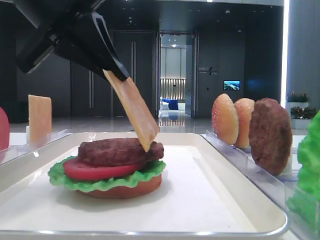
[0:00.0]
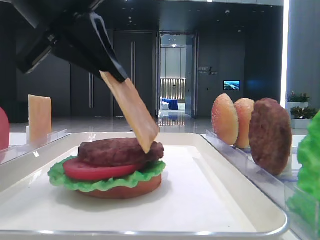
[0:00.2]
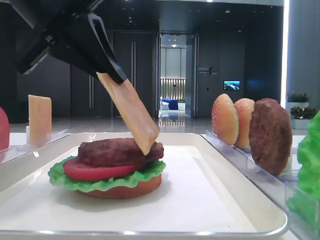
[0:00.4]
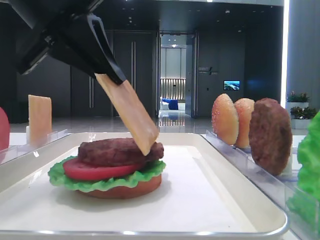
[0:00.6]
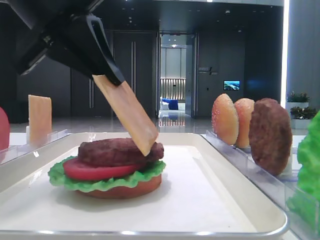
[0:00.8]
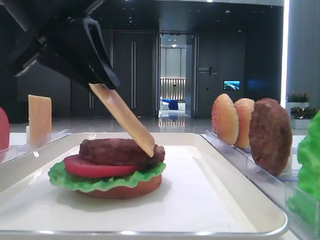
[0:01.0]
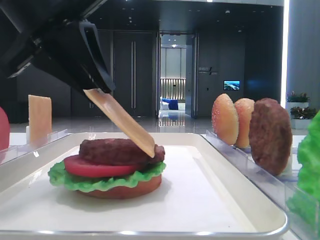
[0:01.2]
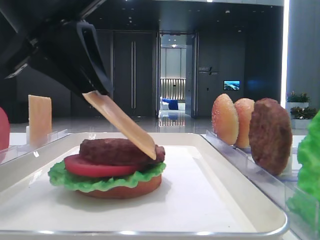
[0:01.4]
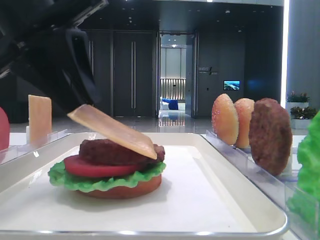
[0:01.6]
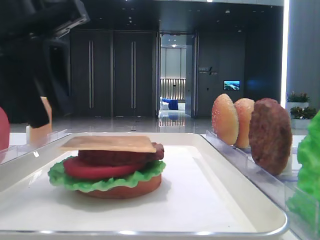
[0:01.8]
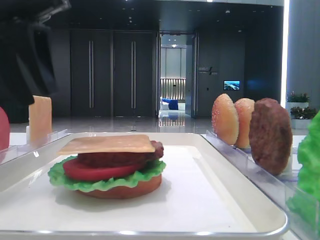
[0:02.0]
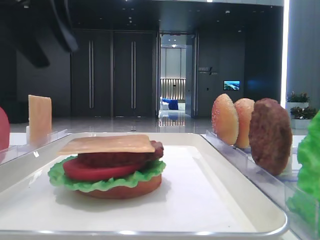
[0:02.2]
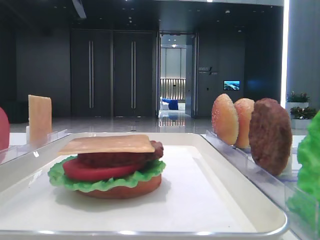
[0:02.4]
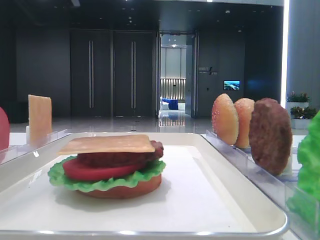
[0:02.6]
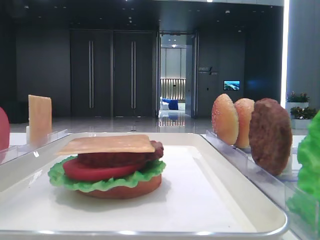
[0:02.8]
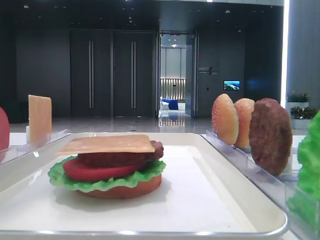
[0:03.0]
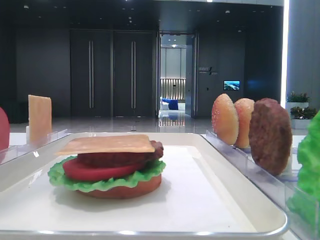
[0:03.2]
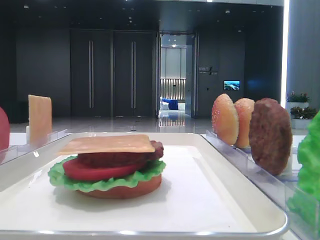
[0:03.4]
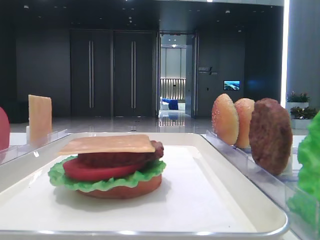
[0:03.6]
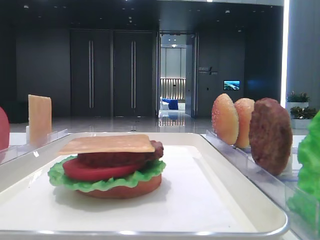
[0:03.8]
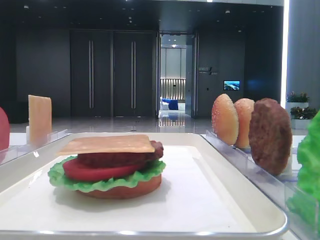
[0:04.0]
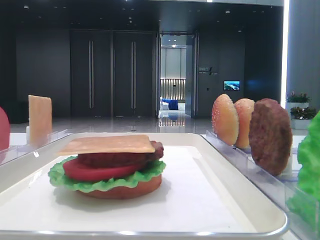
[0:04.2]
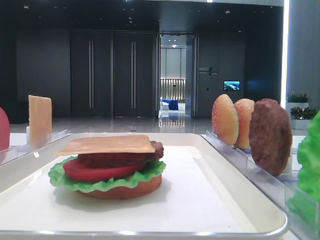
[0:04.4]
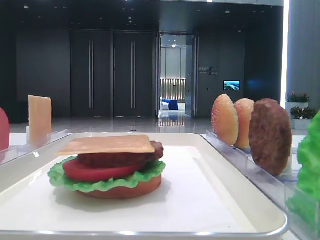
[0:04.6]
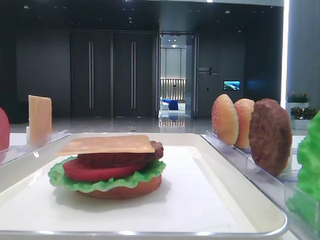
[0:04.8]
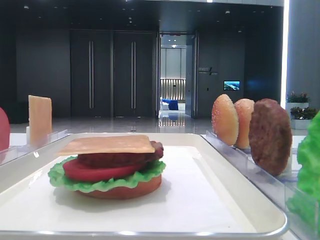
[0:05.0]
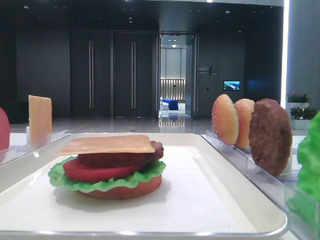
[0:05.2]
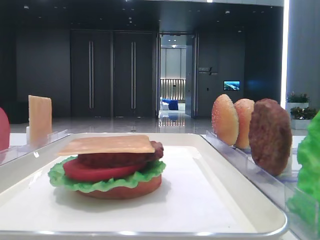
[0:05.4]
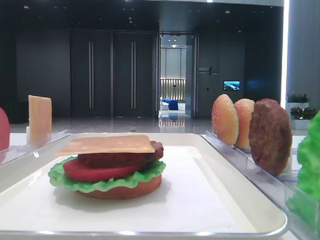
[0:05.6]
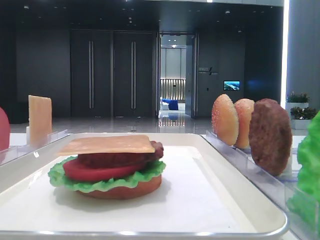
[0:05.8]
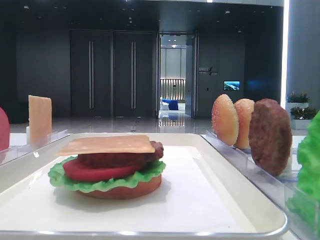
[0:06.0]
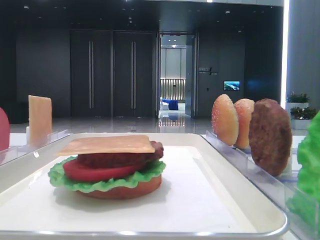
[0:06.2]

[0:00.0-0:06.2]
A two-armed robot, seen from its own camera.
0:00.0 to 0:01.6: The left gripper opens.
0:01.6 to 0:03.2: The left gripper travels upward and to the left by some 15 cm, and opens its fingers.
0:03.2 to 0:04.6: The left gripper heads backward and to the left, covering approximately 25 cm.

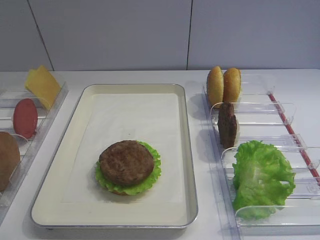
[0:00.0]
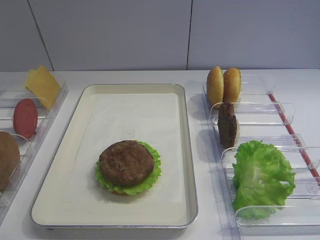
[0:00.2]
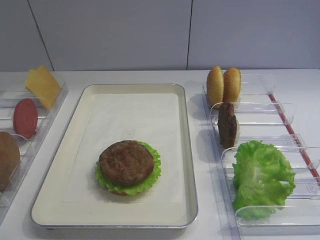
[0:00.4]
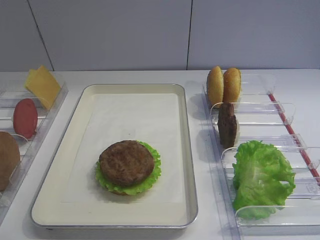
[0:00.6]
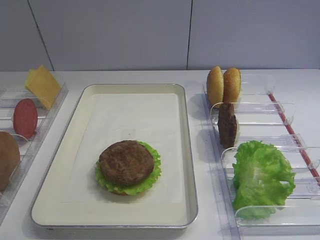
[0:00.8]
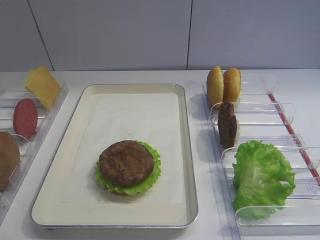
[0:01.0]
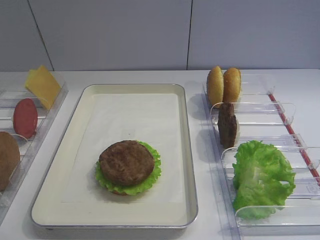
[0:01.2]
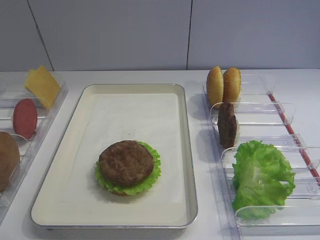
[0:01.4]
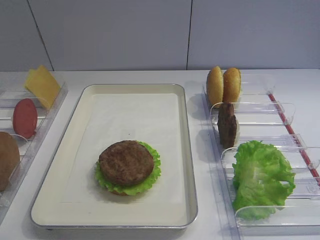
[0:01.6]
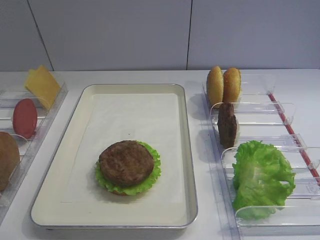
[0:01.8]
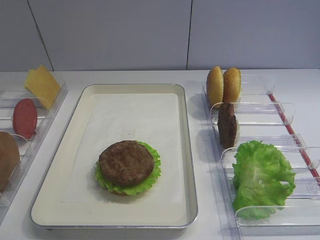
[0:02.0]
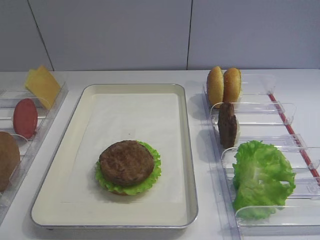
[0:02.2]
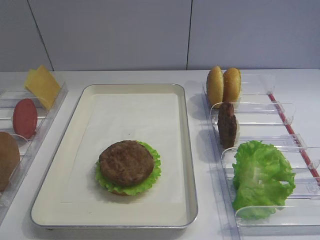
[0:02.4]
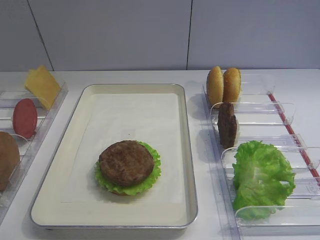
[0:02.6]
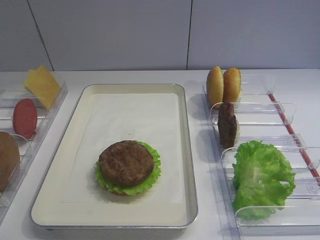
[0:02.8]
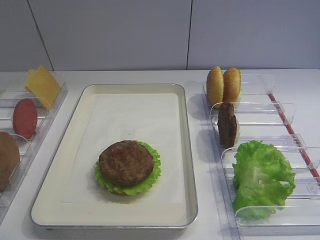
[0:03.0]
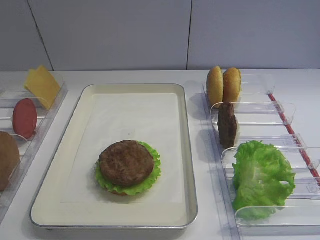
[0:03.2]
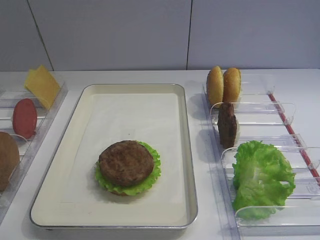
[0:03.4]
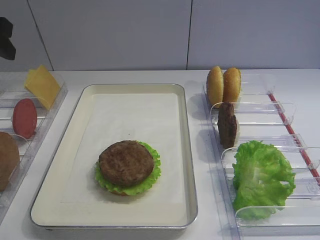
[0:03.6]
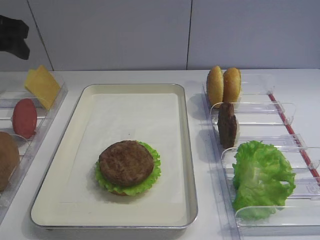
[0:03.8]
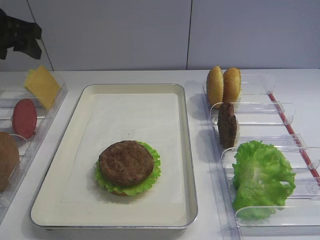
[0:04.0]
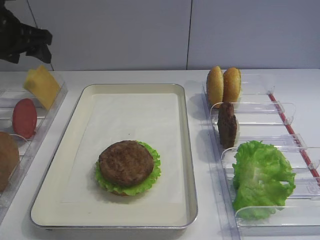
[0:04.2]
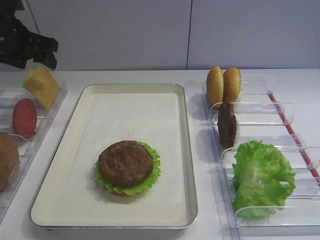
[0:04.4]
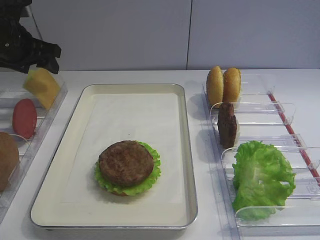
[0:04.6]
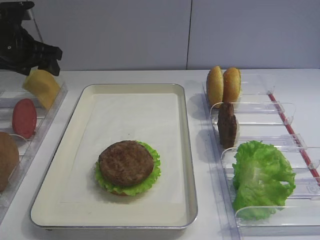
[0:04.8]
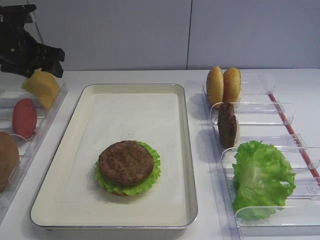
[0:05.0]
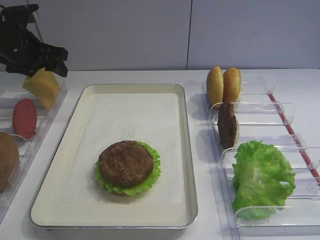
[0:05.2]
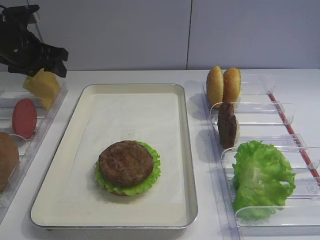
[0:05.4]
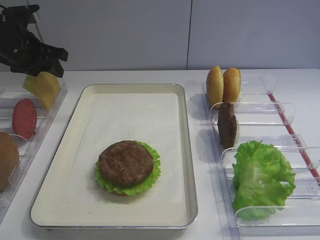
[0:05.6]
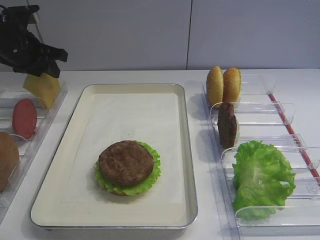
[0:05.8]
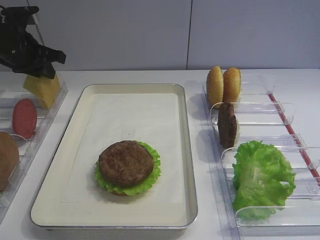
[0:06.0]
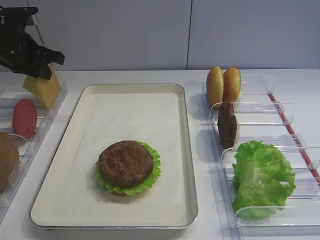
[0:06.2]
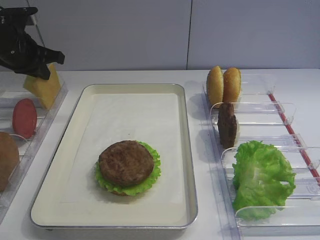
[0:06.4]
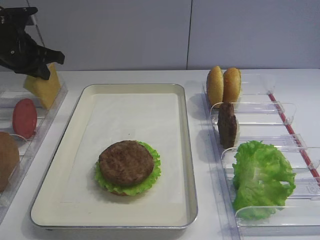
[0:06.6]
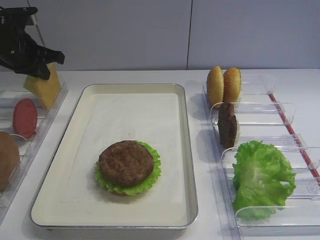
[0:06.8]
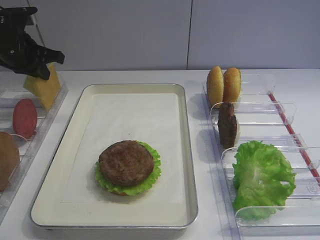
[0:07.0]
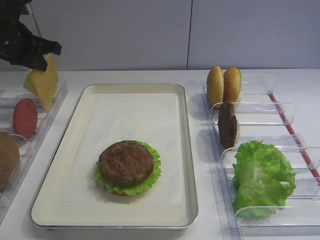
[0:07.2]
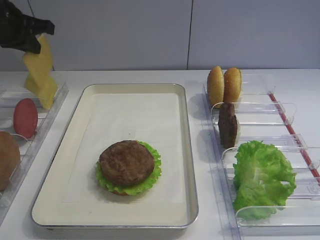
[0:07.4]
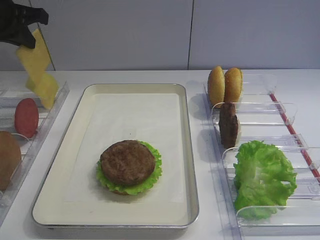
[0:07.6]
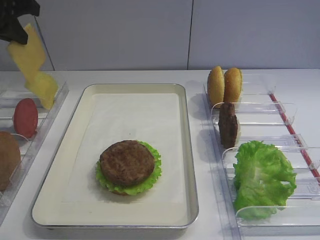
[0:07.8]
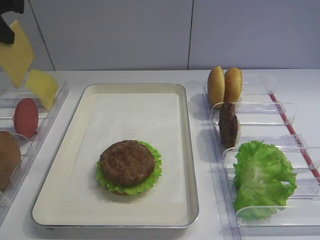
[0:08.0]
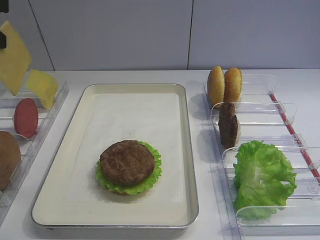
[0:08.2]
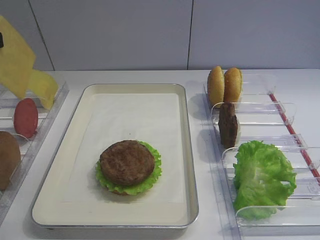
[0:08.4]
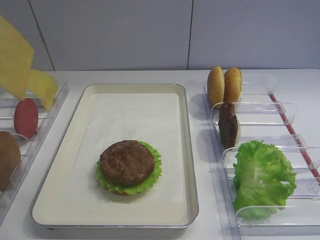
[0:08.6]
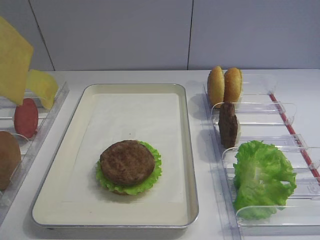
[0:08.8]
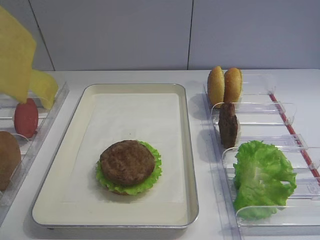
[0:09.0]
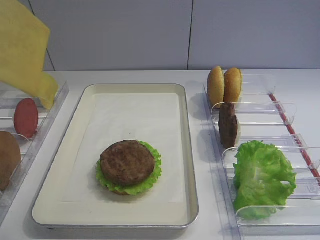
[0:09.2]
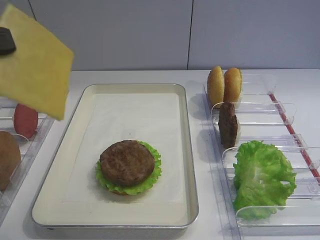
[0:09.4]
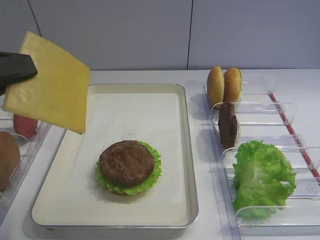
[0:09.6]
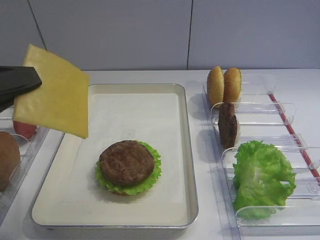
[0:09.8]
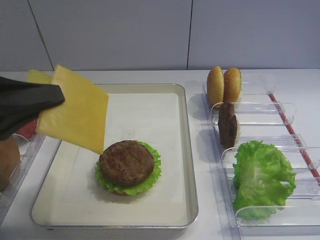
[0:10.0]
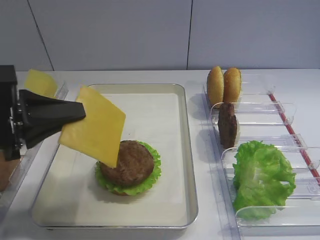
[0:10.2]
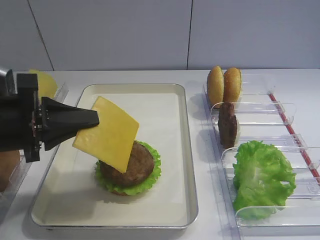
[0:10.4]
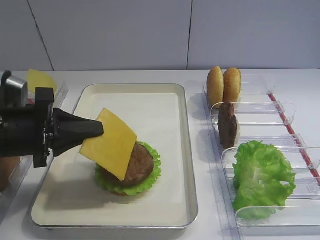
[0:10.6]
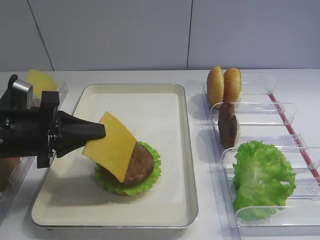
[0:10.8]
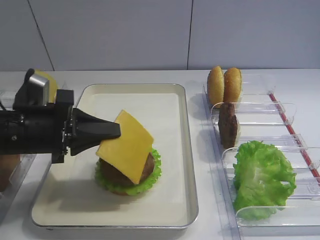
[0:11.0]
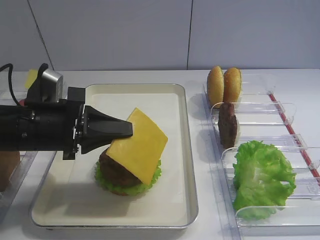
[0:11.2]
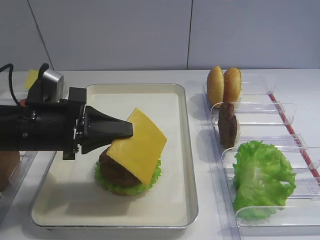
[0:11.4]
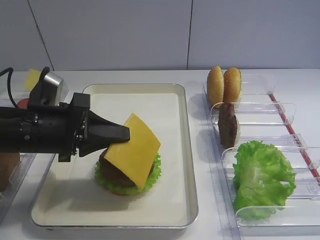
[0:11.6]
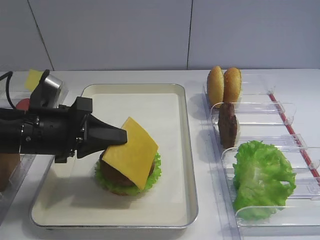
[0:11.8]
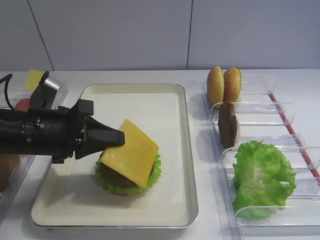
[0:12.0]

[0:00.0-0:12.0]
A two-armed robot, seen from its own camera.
Step, 0:00.0 to 0:06.2: Pick up the cheese slice with the left gripper.
0:03.0 to 0:04.4: The left gripper goes roughly 25 cm forward.
0:04.4 to 0:06.0: The left gripper closes.
0:06.0 to 0:07.6: The left gripper moves upward, approximately 10 cm.
0:07.6 to 0:09.0: The left gripper heads backward, covering approximately 25 cm.
0:09.0 to 0:10.4: The left gripper goes approximately 20 cm downward and forward.
0:10.4 to 0:12.0: The left gripper ends up approximately 5 cm from where it was.

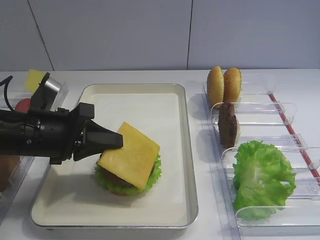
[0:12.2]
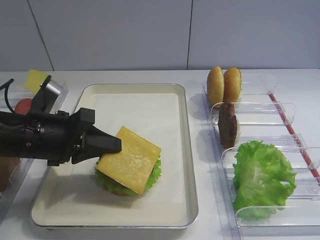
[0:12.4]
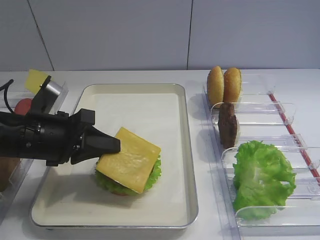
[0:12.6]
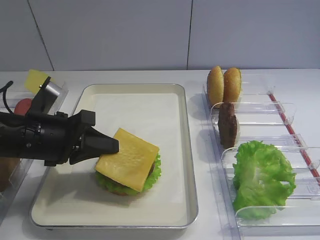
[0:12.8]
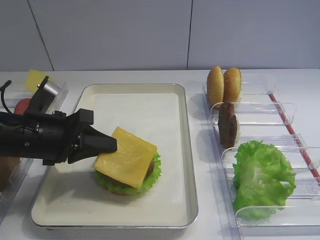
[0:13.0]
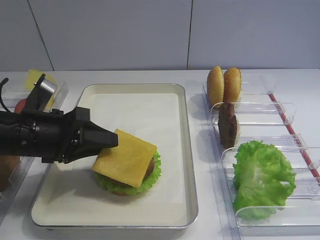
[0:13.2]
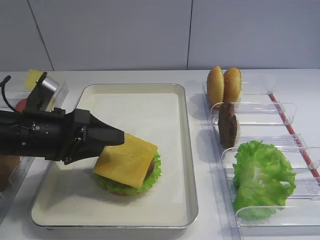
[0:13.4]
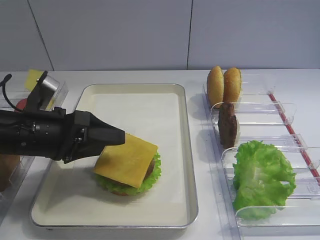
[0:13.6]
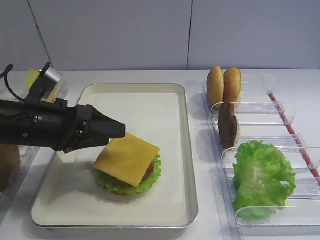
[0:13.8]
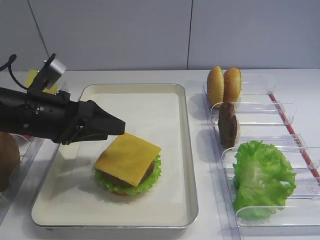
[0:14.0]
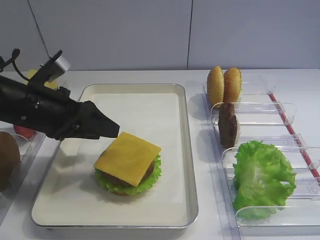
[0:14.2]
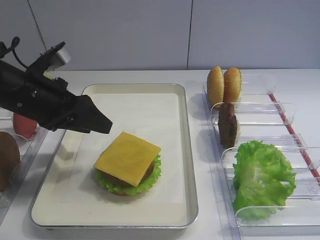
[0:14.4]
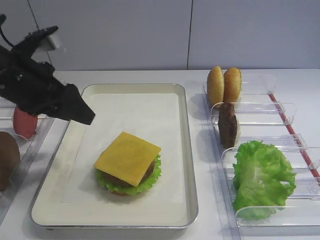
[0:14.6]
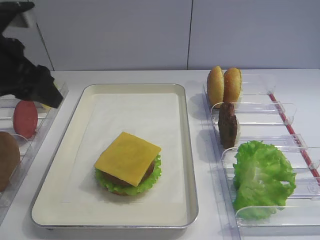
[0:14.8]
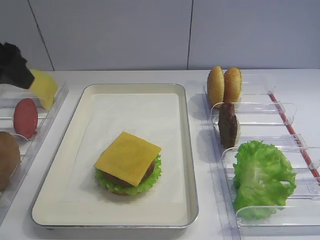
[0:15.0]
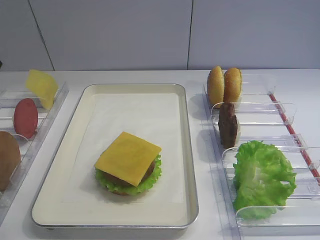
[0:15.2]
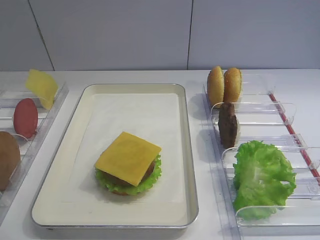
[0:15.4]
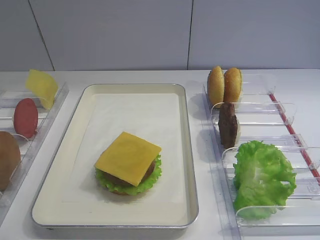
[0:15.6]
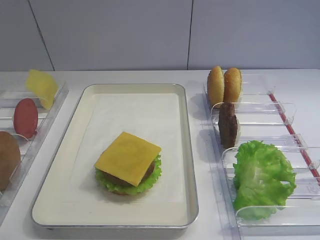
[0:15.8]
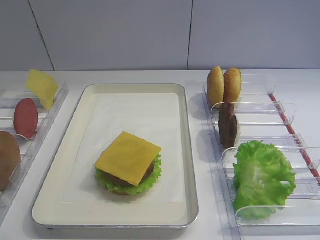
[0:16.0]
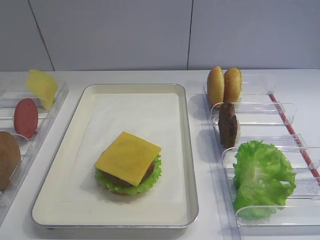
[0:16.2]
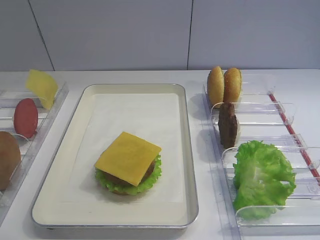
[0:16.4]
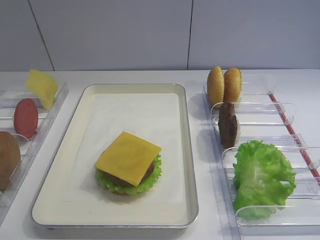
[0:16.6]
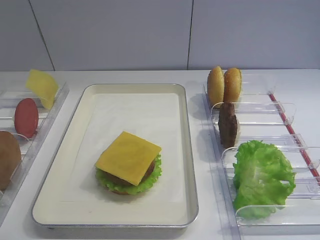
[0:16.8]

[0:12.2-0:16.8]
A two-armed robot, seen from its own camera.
Step, 0:12.2 to 0:14.2: Place the cheese slice on the cutlet with the left gripper.
0:12.2 to 0:13.8: The left gripper opens.
0:13.8 to 0:15.2: The left gripper heads upward and to the left, covering approximately 20 cm.
